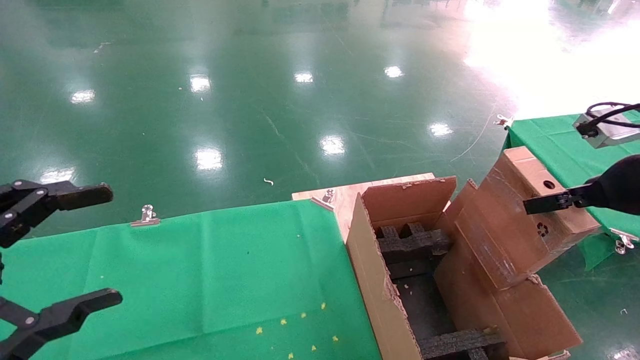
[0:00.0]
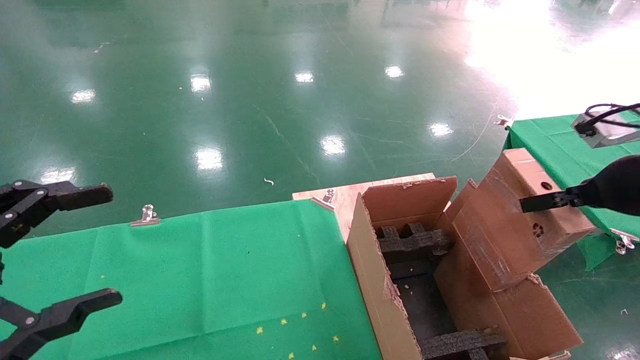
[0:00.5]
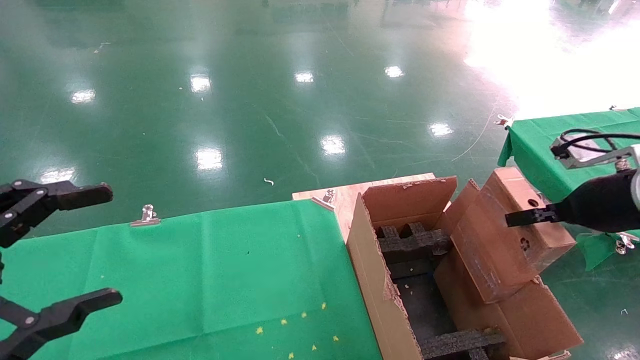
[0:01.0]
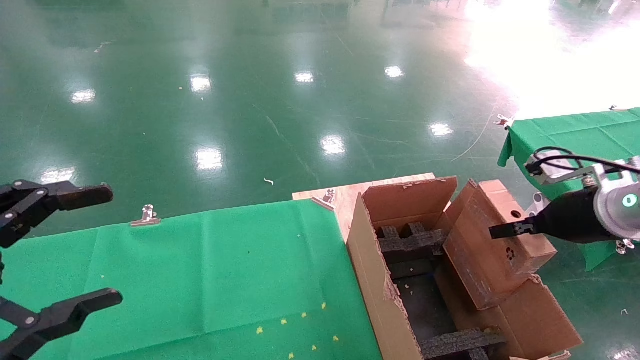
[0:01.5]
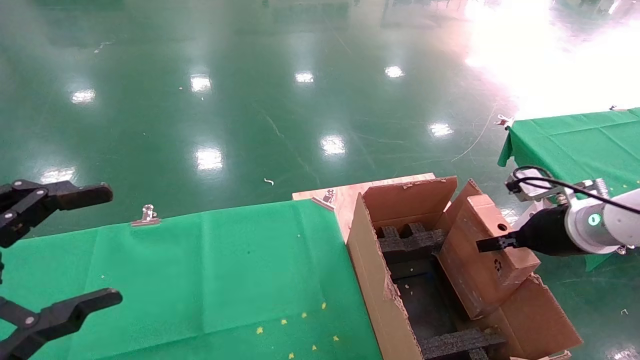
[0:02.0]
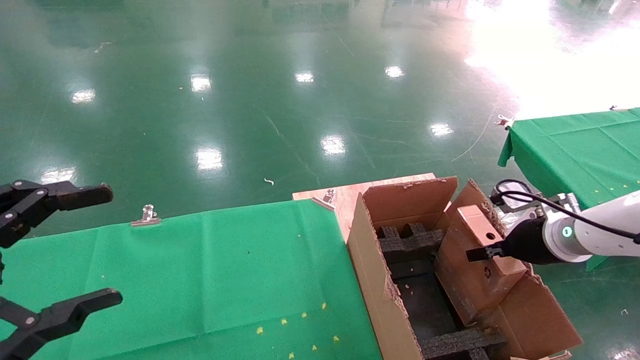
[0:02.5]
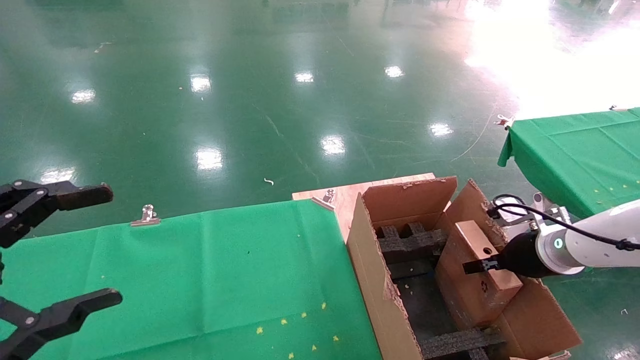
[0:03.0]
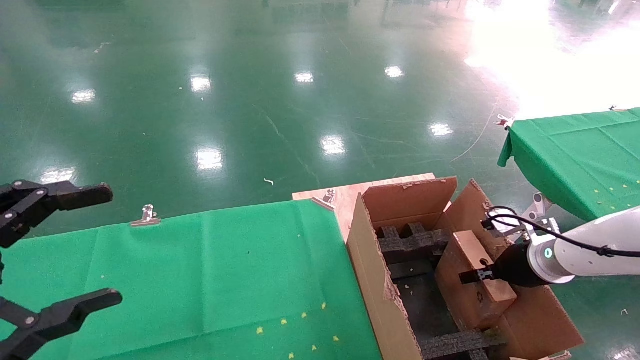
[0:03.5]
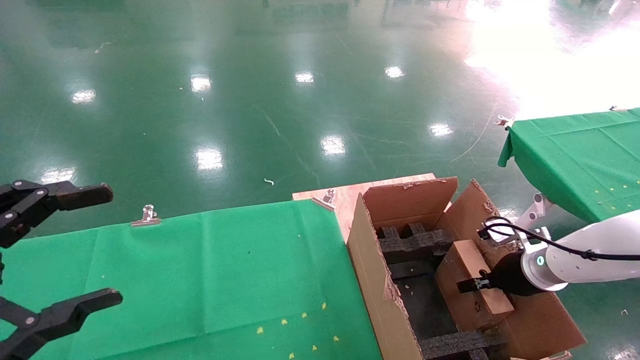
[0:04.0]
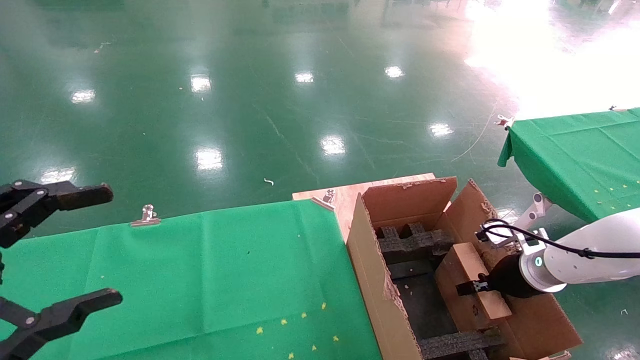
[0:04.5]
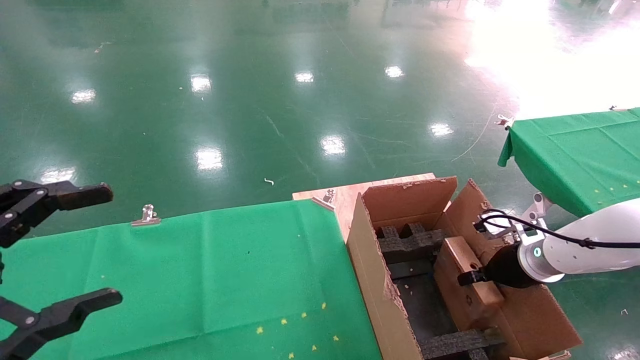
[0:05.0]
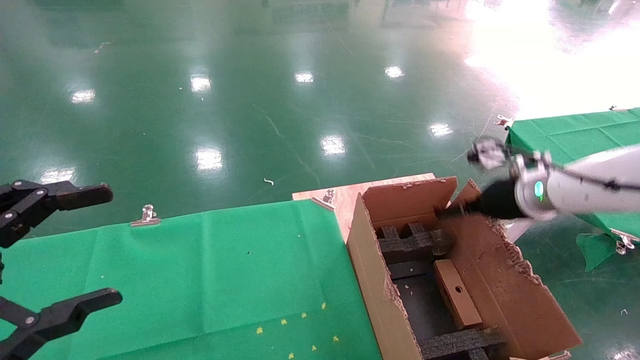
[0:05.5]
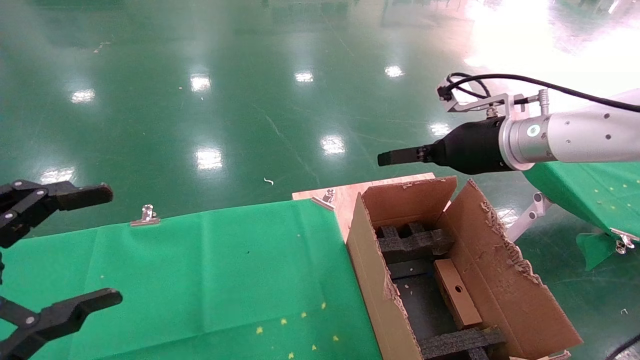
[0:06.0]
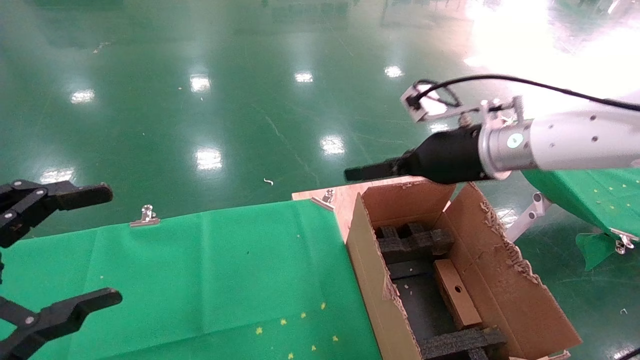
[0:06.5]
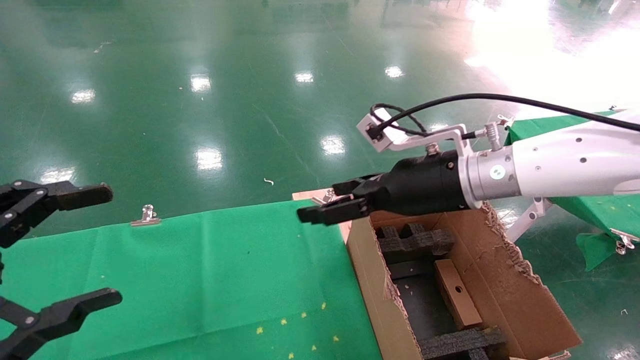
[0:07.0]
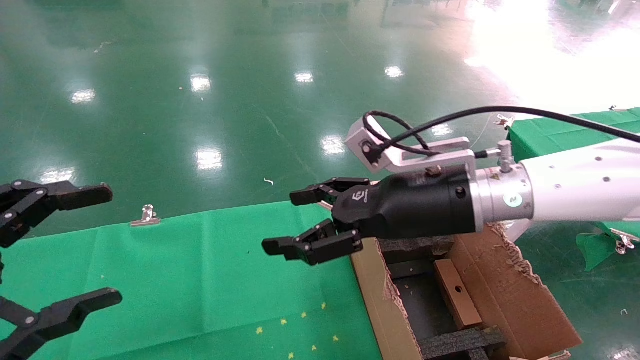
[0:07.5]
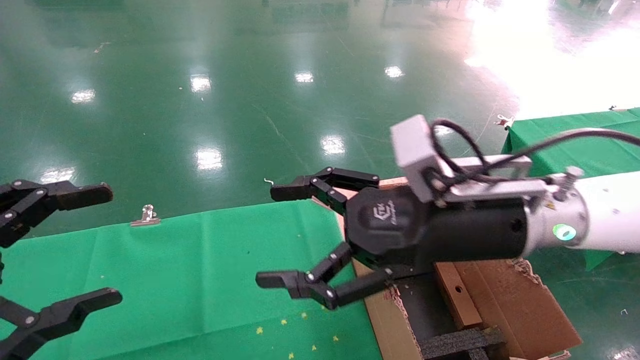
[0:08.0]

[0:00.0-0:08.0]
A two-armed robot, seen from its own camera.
Task of the whole recording: using a robotic arm to pick up a cardboard box and palace it the carton.
Step, 0:00.0 to 0:05.0: Place the mouse and the power cord paper box into the container.
0:00.0 to 0:02.0: The right gripper travels downward and forward by roughly 15 cm.
0:02.0 to 0:04.0: The right gripper is displaced downward by roughly 10 cm.
0:04.0 to 0:06.0: The right gripper is displaced upward and to the left by some 25 cm, and opens its fingers.
0:06.0 to 0:08.0: The right gripper heads backward and to the left, covering approximately 15 cm.
